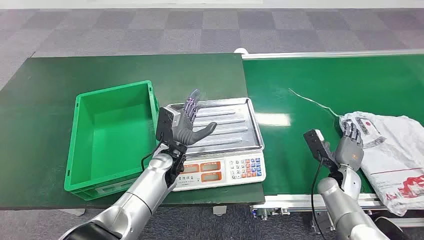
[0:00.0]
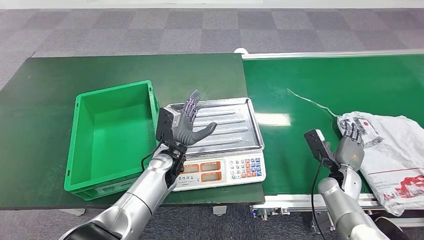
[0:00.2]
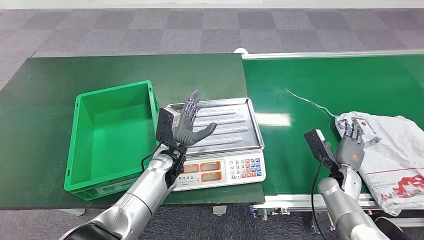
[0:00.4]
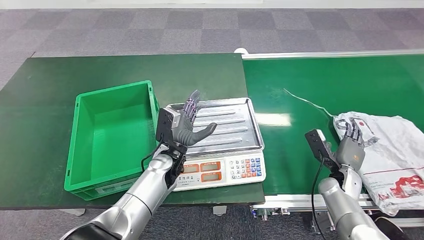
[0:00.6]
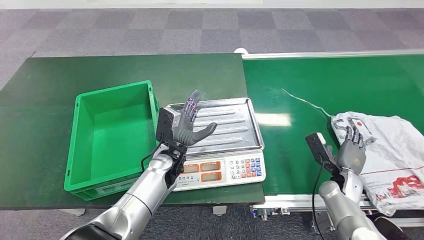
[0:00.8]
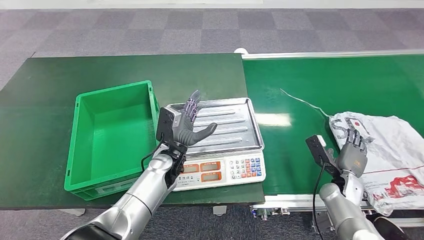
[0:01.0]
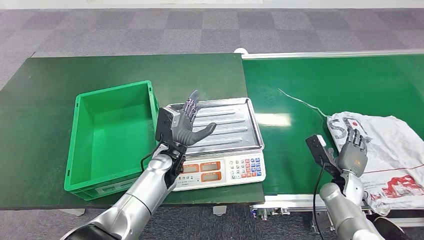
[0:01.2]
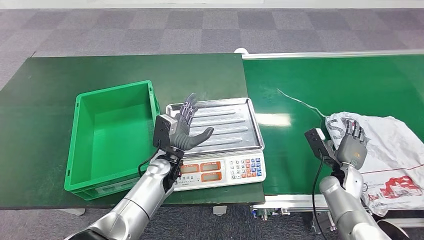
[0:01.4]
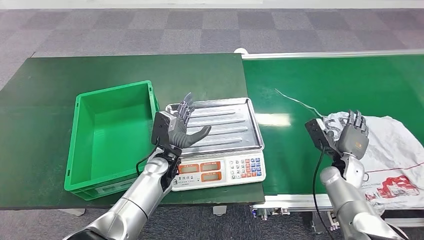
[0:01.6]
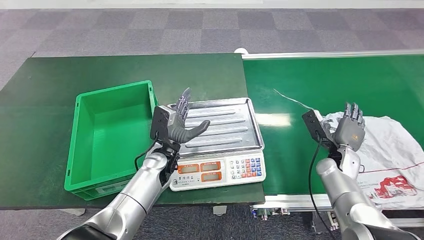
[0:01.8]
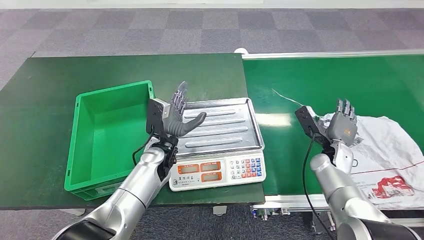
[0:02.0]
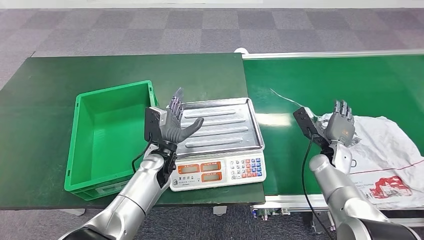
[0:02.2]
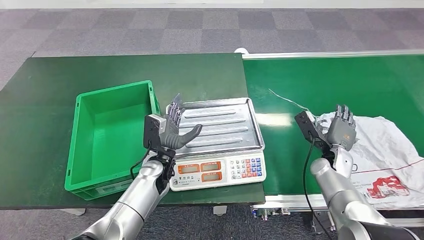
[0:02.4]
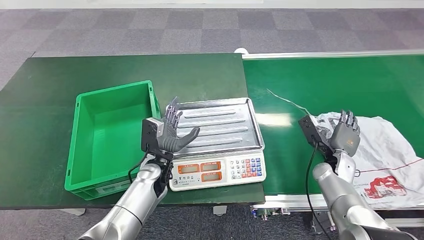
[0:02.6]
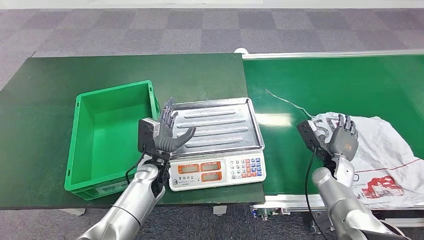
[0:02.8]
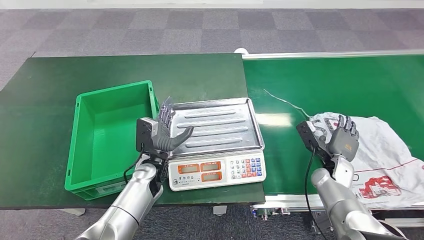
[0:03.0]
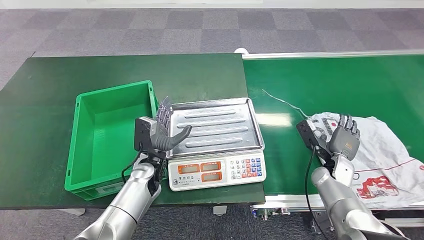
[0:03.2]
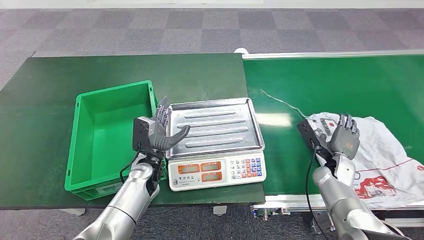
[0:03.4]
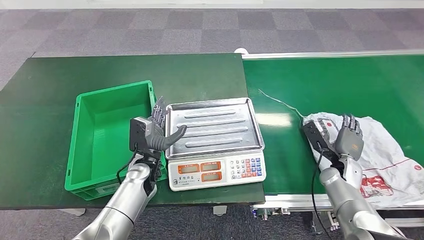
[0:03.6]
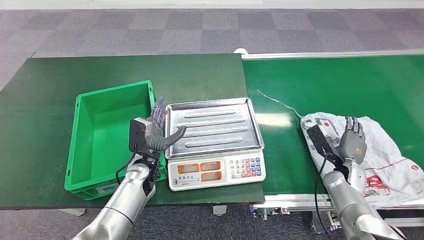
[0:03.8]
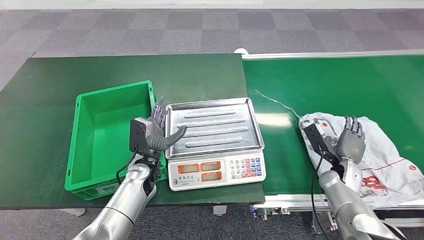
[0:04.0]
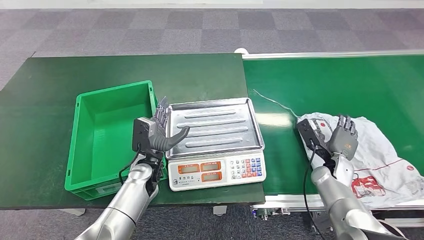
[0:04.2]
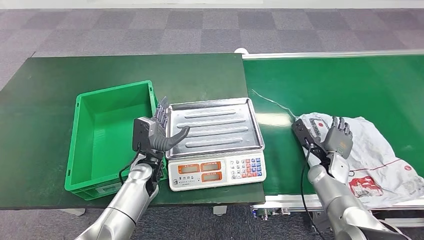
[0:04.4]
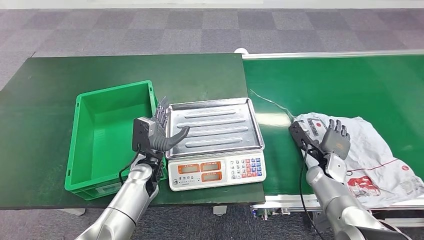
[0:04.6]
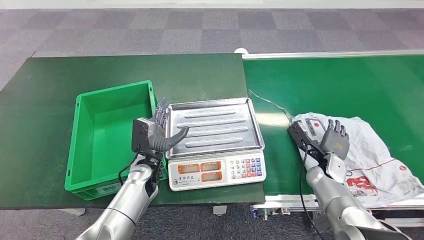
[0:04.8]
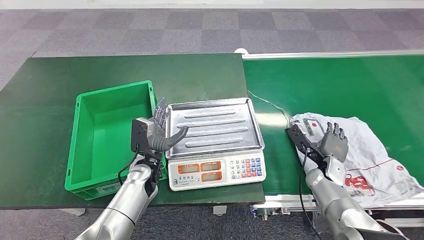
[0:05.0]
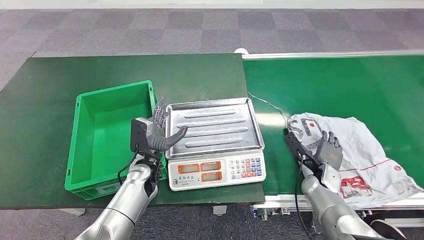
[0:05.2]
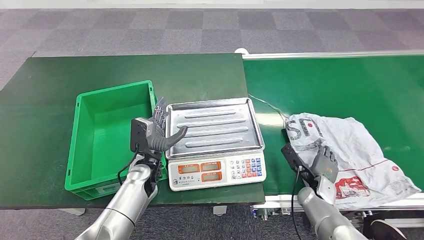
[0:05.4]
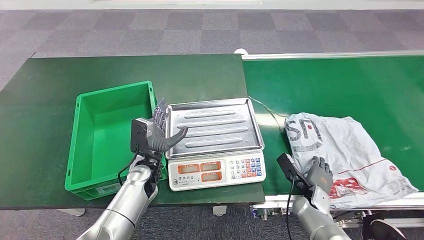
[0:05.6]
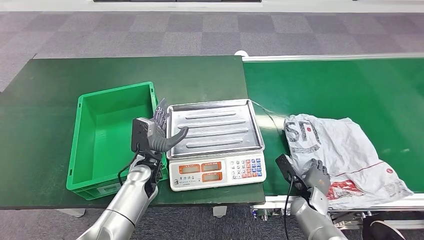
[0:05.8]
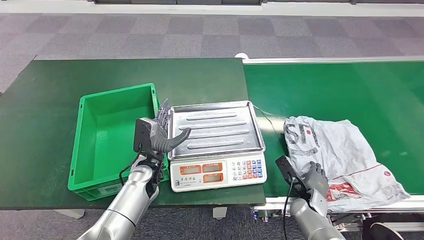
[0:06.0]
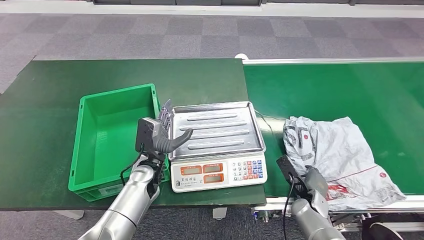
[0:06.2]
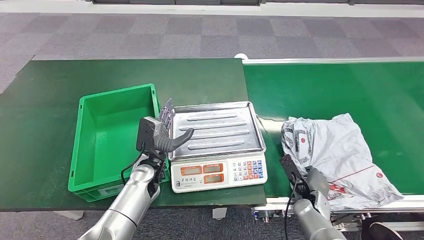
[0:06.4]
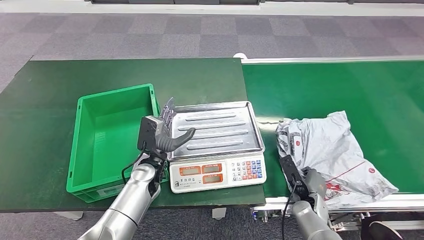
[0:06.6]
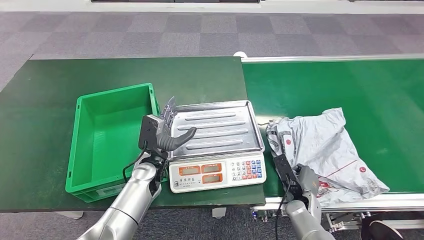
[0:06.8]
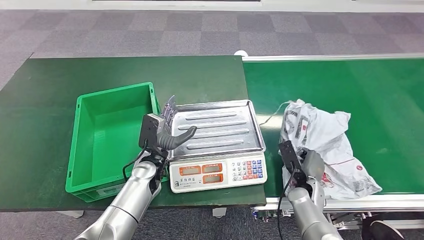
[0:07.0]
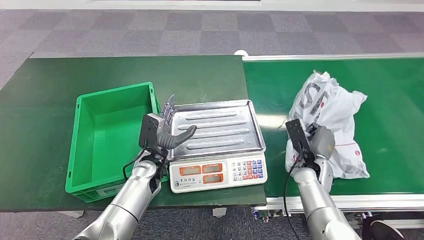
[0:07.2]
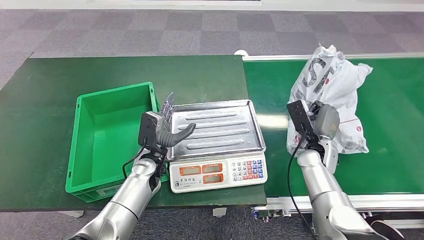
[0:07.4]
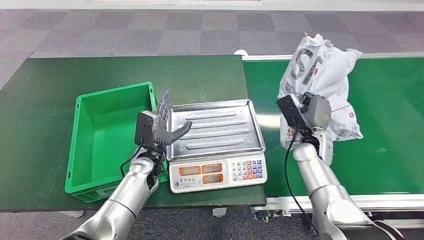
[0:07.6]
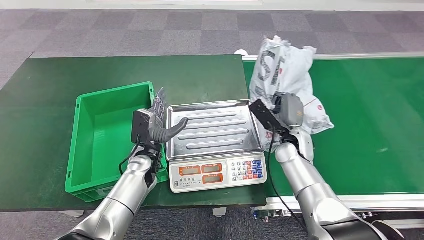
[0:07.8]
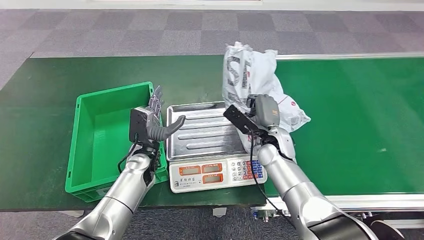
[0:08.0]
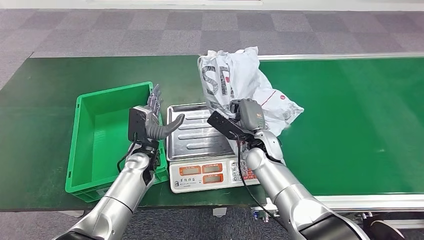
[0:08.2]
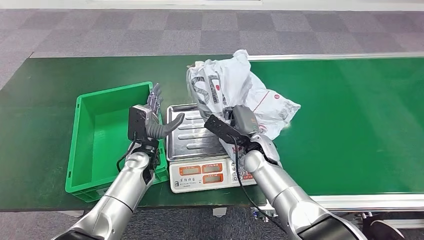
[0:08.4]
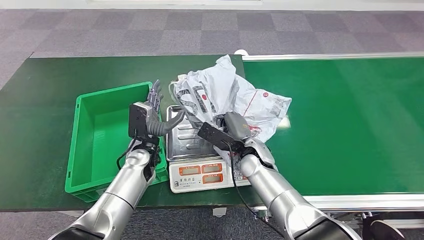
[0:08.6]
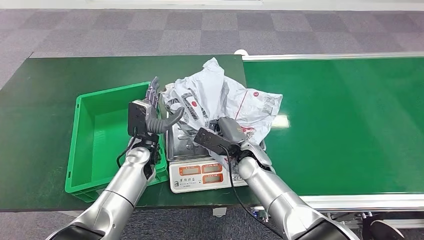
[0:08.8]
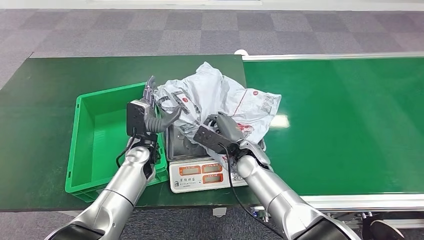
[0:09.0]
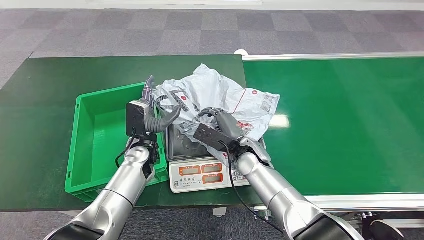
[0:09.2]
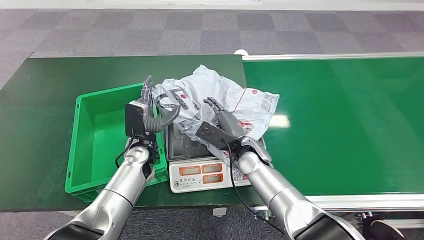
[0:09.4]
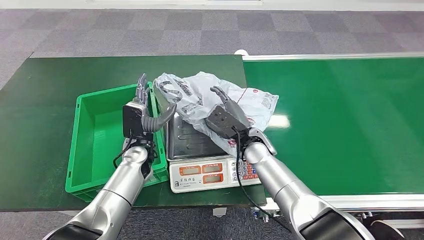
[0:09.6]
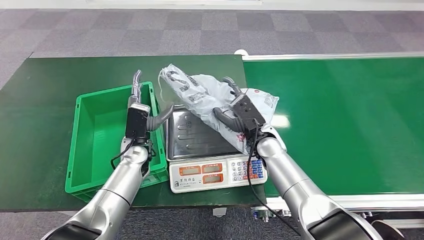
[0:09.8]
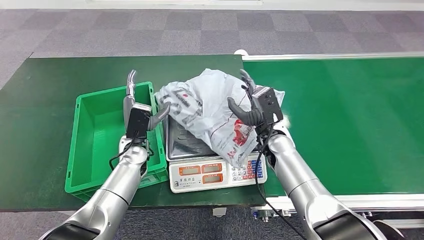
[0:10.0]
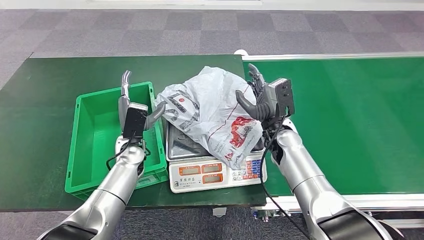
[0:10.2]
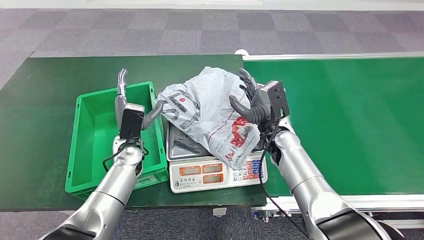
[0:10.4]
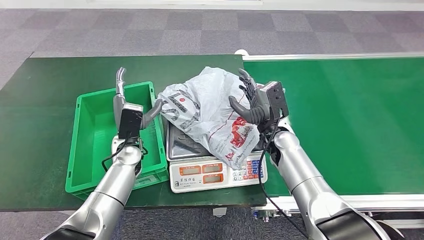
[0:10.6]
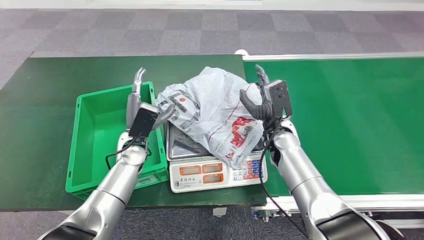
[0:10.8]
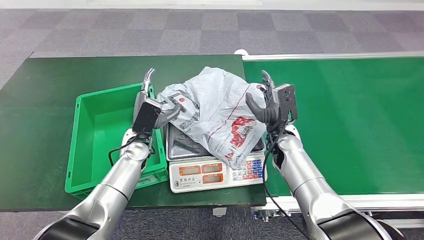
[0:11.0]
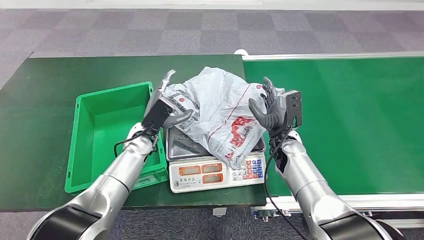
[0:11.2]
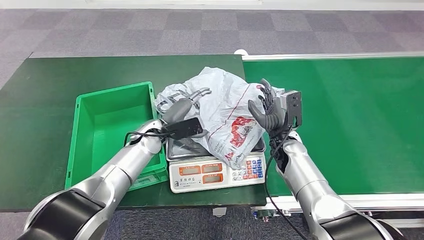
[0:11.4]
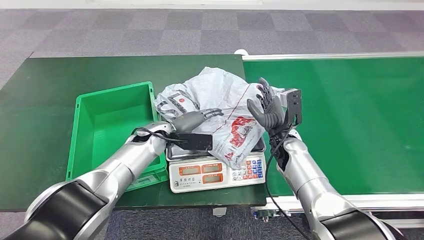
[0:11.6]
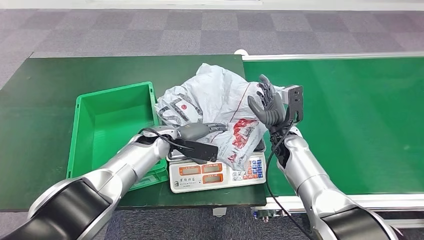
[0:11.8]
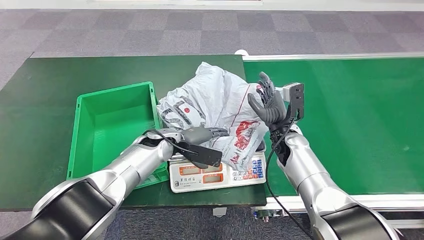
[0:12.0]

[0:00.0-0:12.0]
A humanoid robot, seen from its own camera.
Step, 0:00.0 to 0:07.6: Pick up the package from the conveyor belt.
Step, 0:07.8 to 0:10.0: Place the package onto the inbound machine.
0:01.6 to 0:04.4: The hands make only small movements.

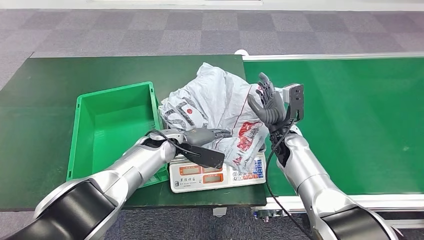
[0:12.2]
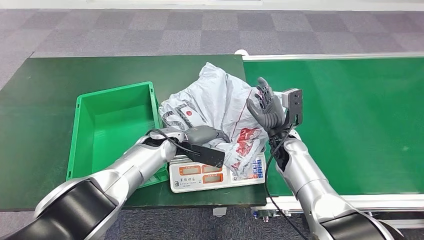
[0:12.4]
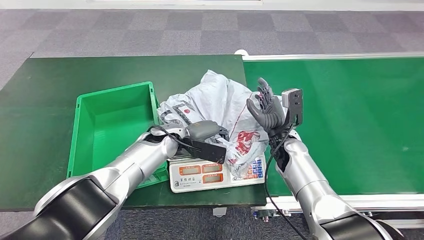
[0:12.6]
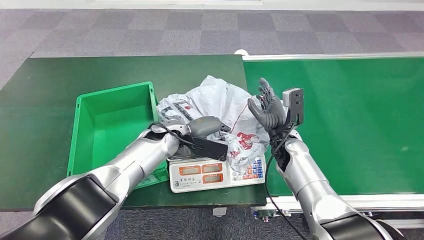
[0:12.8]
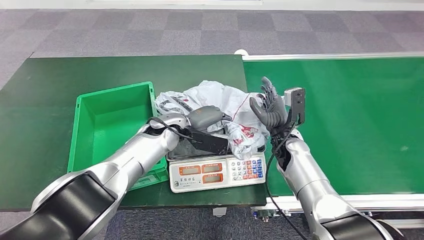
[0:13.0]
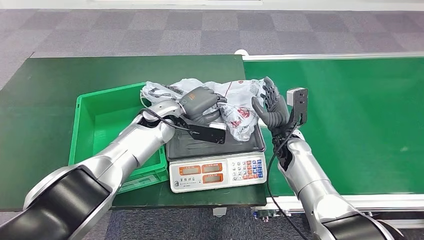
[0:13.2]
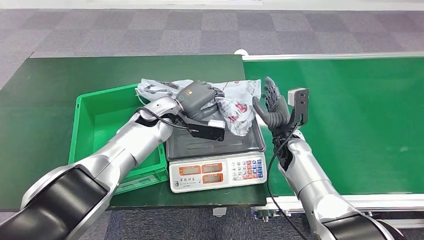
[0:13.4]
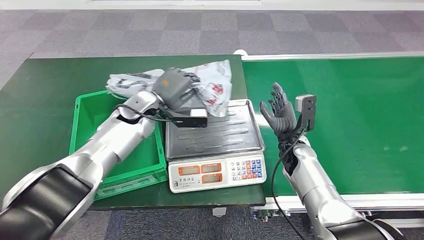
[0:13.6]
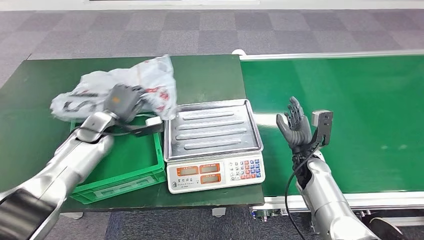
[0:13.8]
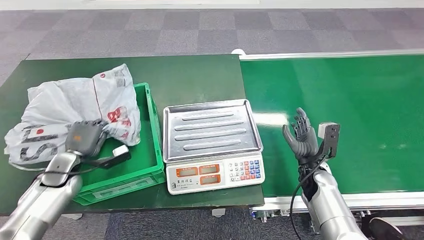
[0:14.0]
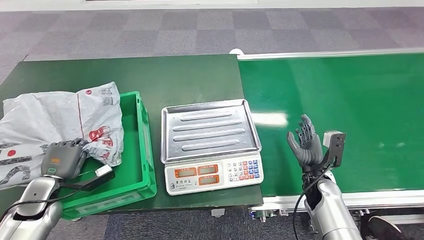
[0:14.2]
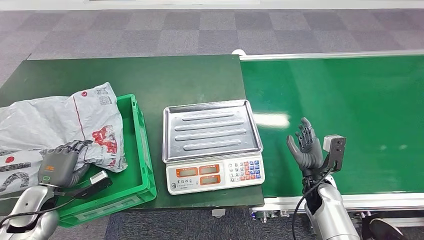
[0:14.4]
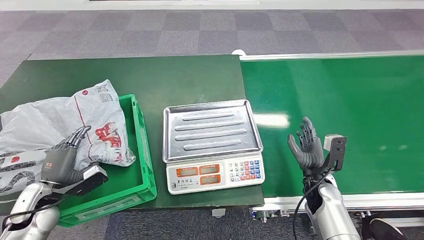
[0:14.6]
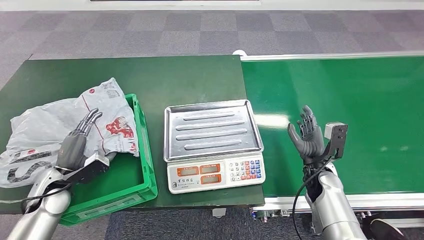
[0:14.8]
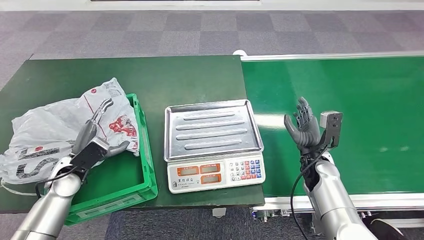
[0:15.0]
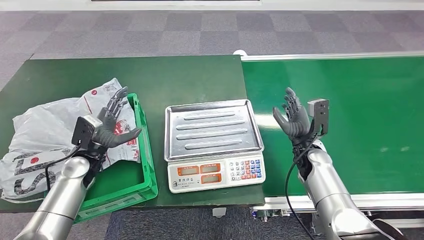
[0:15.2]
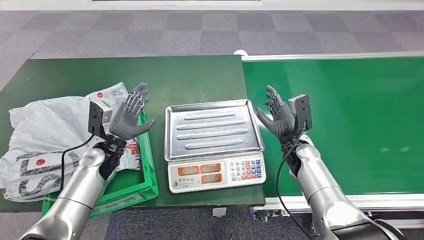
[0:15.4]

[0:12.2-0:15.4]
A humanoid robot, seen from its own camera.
Step, 0:13.8 to 0:15.4: Place the package into the parcel locker.
